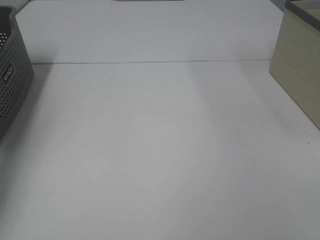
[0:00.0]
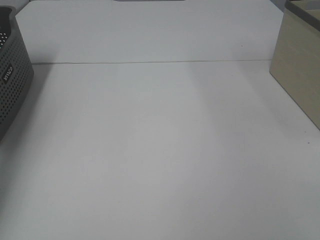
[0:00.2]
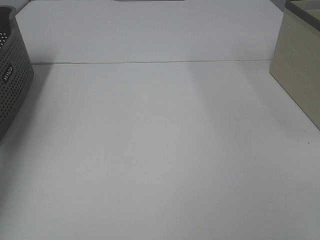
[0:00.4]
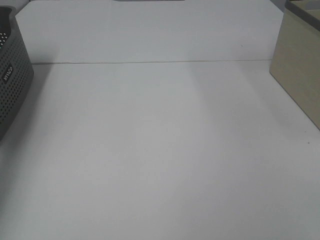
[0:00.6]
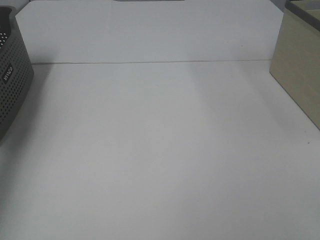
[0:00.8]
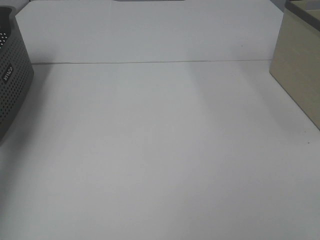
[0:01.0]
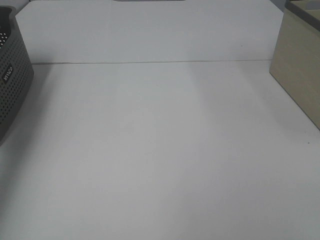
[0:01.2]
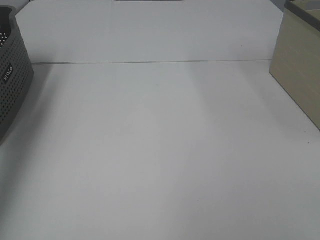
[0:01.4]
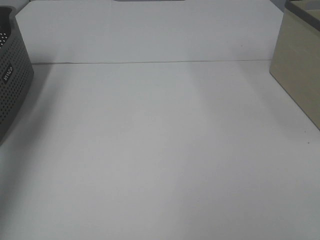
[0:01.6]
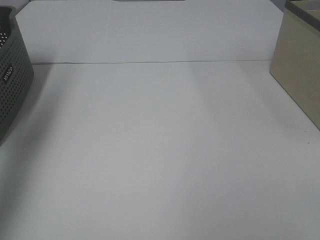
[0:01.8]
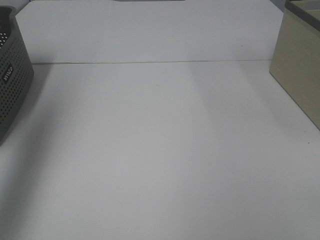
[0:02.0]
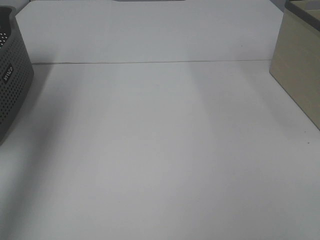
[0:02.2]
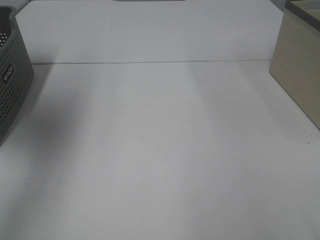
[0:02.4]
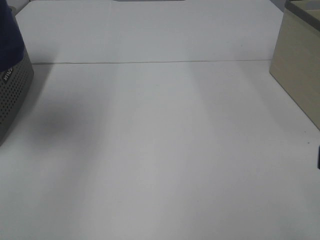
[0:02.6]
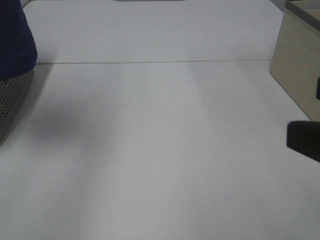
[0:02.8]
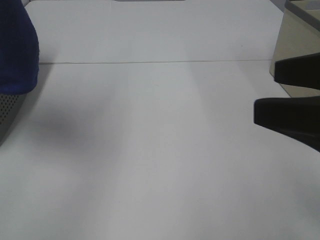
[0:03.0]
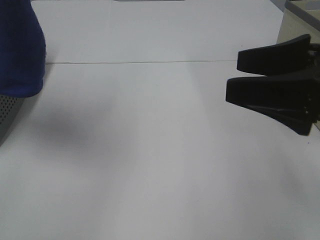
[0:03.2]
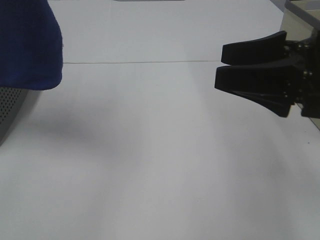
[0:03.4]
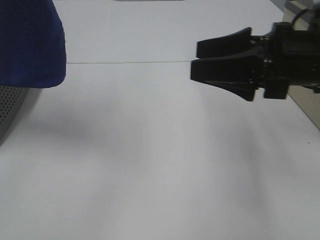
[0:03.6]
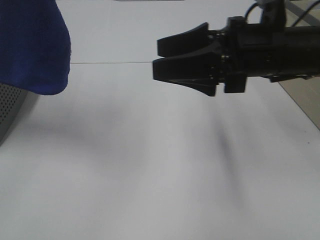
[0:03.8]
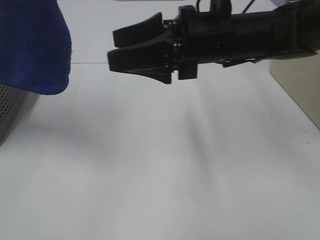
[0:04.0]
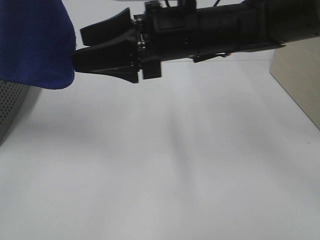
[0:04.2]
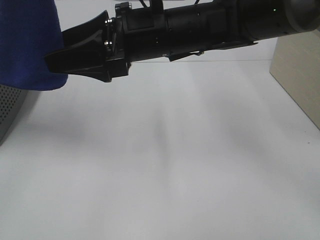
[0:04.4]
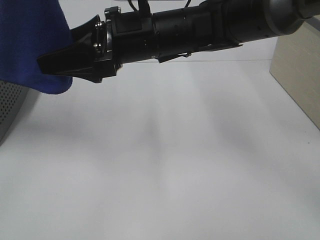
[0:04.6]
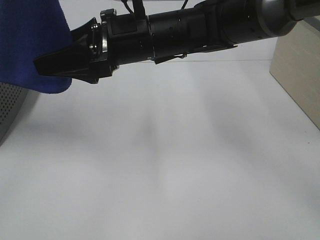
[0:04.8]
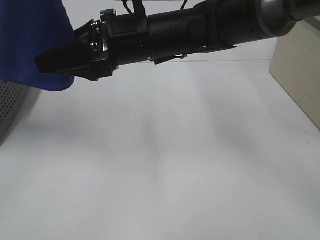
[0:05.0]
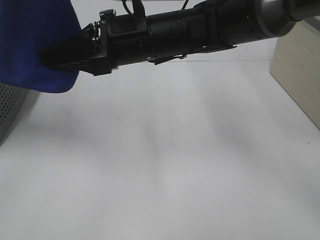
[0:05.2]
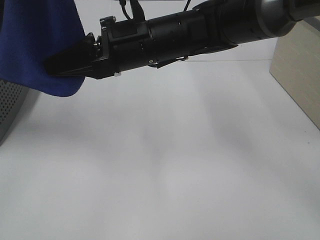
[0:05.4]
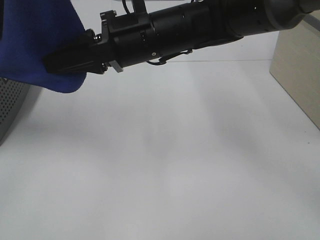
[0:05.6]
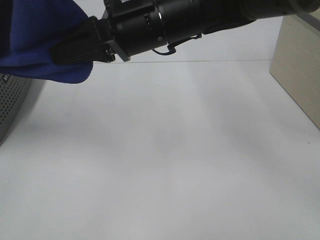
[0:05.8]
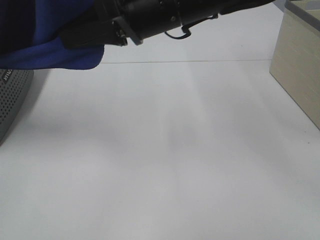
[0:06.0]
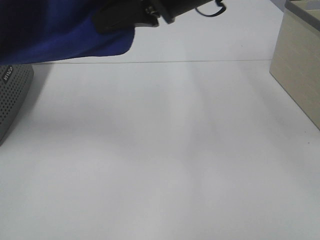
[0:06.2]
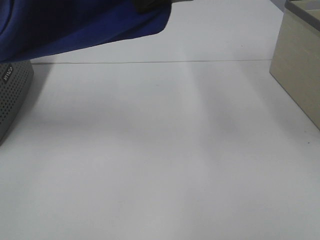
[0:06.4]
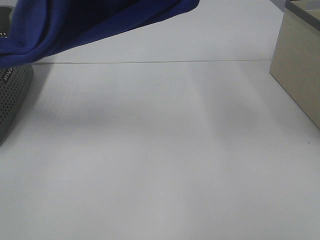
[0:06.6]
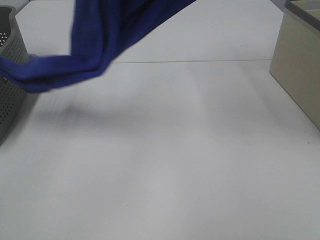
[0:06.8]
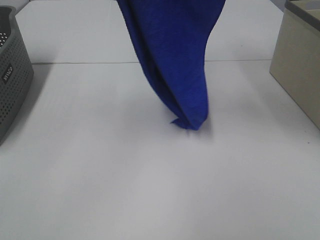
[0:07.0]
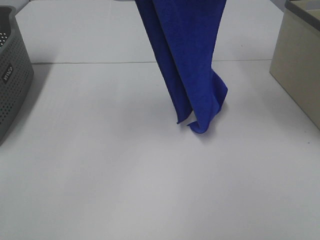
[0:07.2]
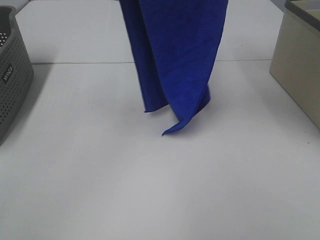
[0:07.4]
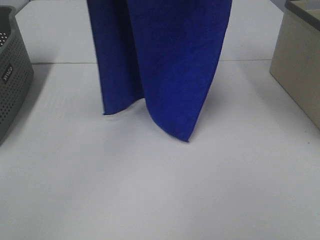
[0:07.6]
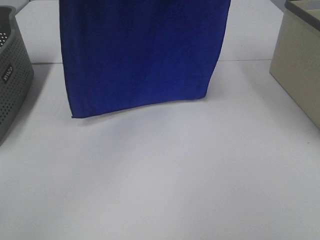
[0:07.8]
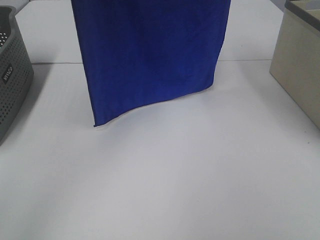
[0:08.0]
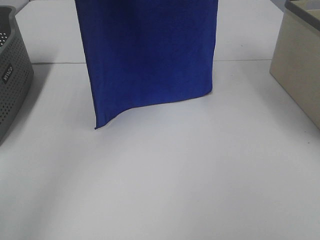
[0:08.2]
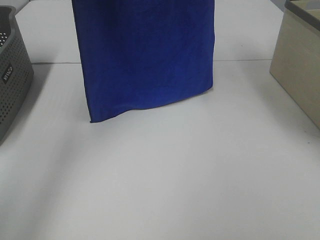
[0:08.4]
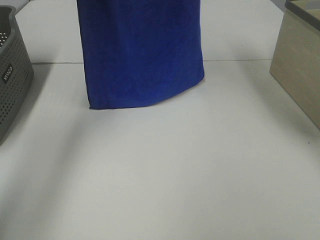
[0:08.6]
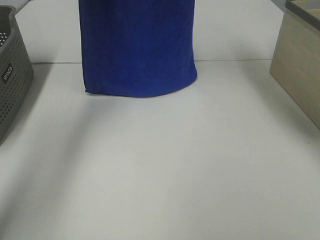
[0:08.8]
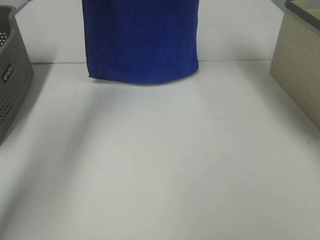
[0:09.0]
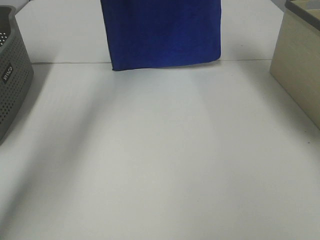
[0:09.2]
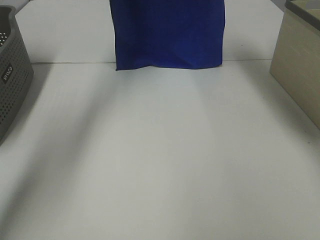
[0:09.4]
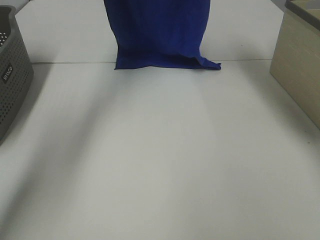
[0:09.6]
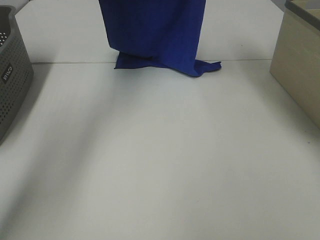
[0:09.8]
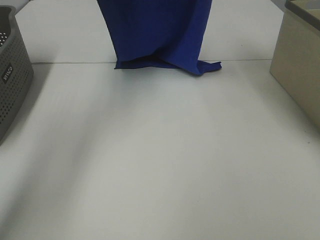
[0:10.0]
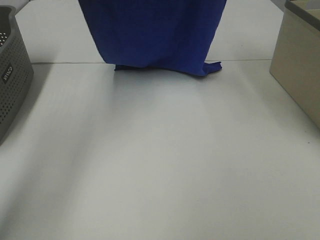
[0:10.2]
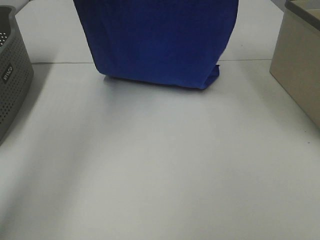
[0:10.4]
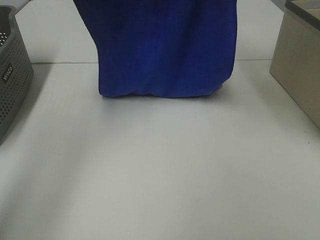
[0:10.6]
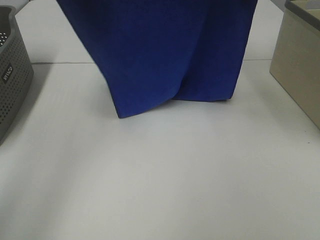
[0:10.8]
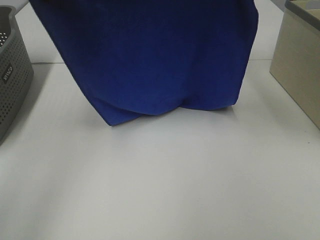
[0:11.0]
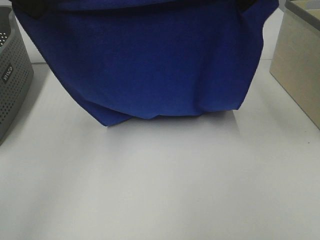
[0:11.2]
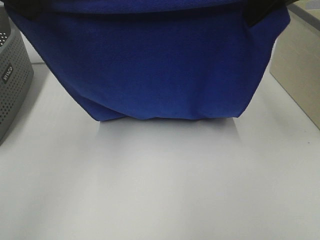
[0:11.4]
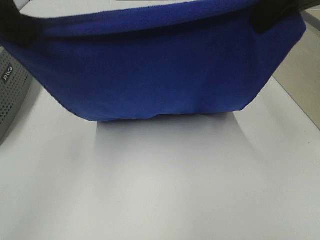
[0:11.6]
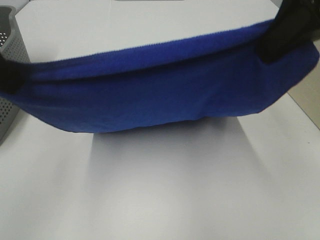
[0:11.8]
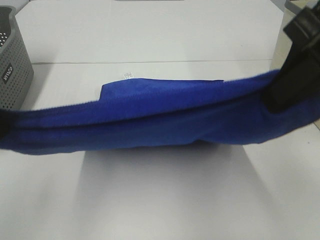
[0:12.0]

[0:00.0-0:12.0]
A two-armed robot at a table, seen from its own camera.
Task of the whole recording: Remove the towel and place it.
Step, 0:02.2 to 0:05.0: Right hand: grab a corner of the blue towel and straighten it.
Step, 0:05.2 to 0:11.4: Left hand: spread the blue towel flat on the table.
Step, 0:05.2 to 0:11.4: Right hand: spread the blue towel flat on the table.
0:00.0 to 0:01.6: The left gripper shifts roughly 30 cm upward and backward, and closes its fingers.
0:01.6 to 0:03.0: The left gripper heads to the right, backward and upward, covering roughly 20 cm. Meanwhile the right gripper heads forward, covering about 15 cm.
0:03.0 to 0:04.4: The right gripper goes approximately 30 cm to the left and forward.
0:04.4 to 0:06.0: The right gripper changes place by about 5 cm, and closes up.
0:06.0 to 0:07.6: The right gripper shifts about 25 cm upward and to the right. Meanwhile the left gripper is displaced forward by roughly 10 cm.
0:07.6 to 0:09.0: The grippers both shift forward by approximately 15 cm.
0:09.0 to 0:10.4: The two grippers go approximately 10 cm backward.
0:10.4 to 0:12.0: The two grippers go some 25 cm backward and downward.

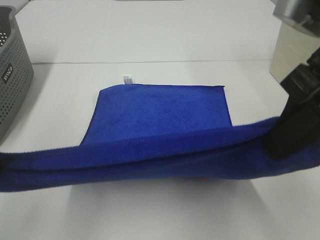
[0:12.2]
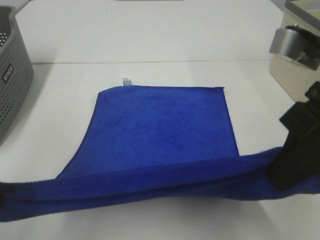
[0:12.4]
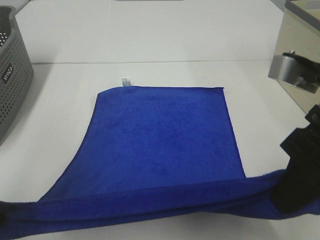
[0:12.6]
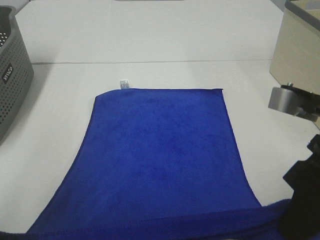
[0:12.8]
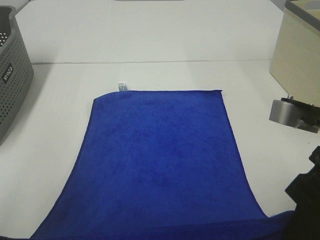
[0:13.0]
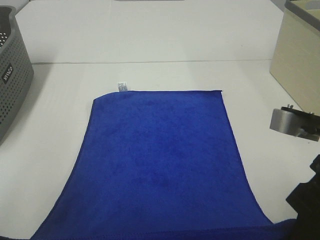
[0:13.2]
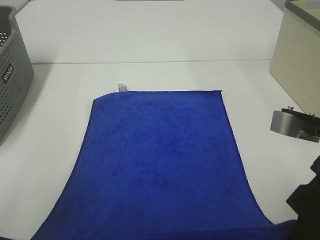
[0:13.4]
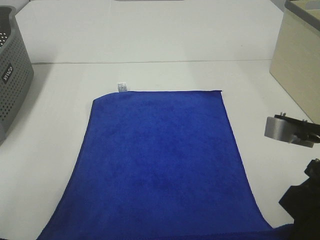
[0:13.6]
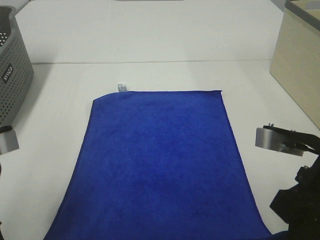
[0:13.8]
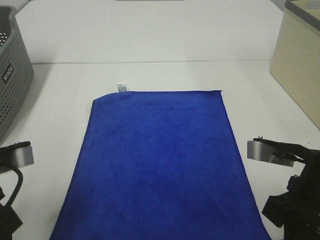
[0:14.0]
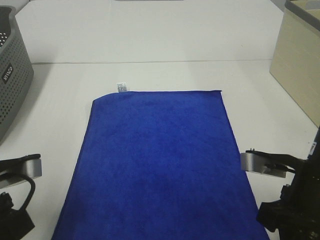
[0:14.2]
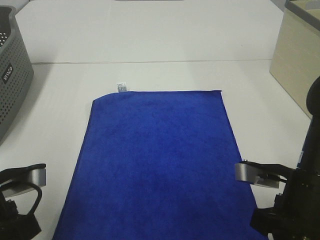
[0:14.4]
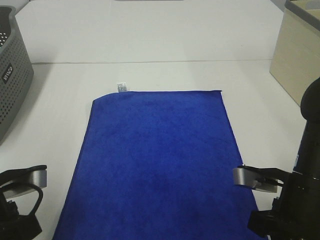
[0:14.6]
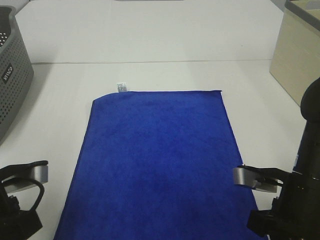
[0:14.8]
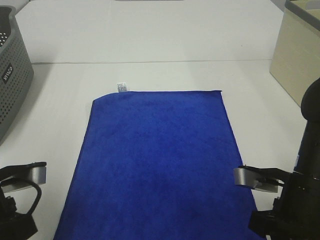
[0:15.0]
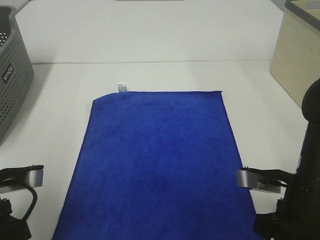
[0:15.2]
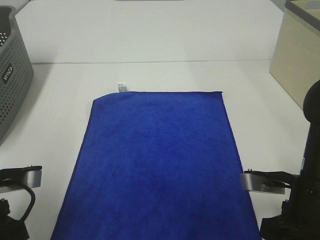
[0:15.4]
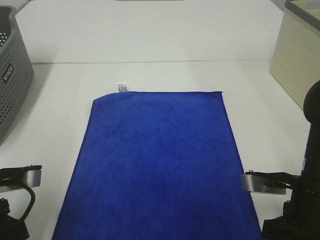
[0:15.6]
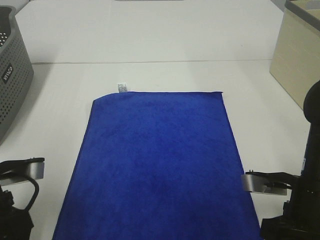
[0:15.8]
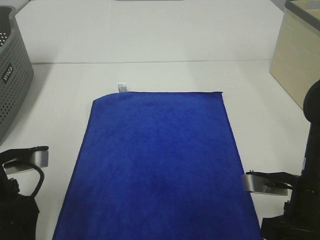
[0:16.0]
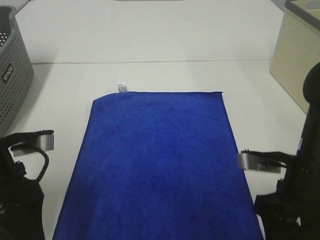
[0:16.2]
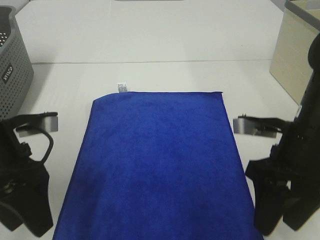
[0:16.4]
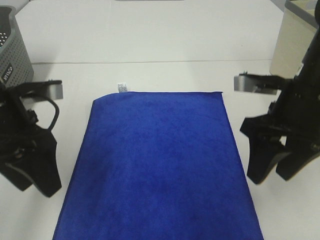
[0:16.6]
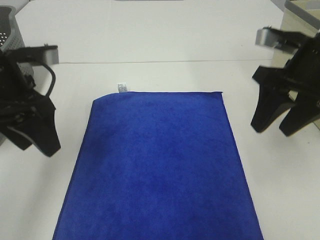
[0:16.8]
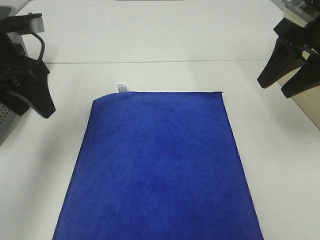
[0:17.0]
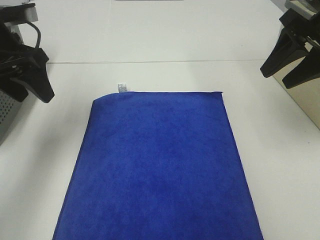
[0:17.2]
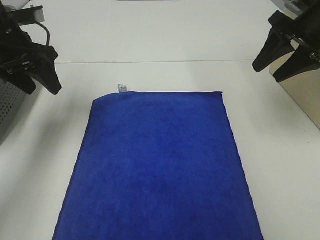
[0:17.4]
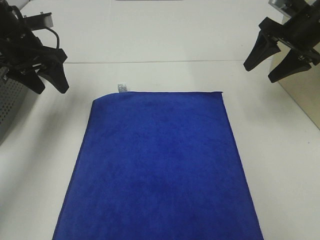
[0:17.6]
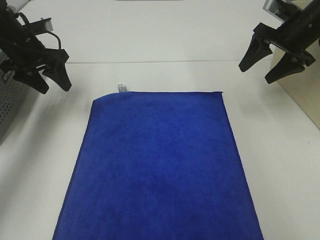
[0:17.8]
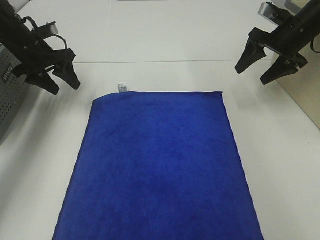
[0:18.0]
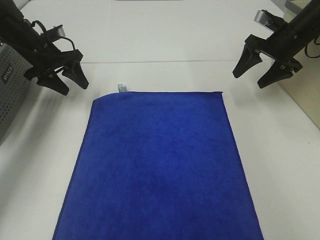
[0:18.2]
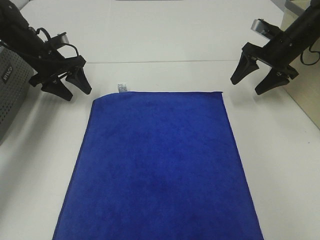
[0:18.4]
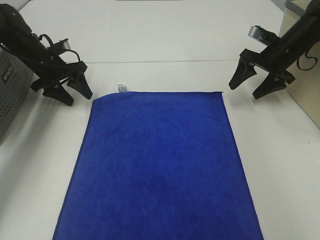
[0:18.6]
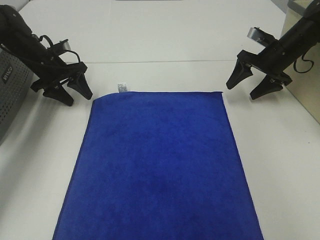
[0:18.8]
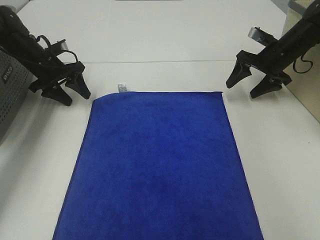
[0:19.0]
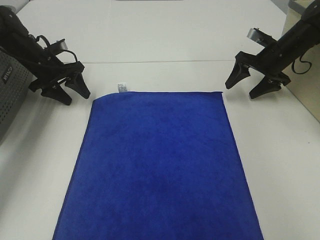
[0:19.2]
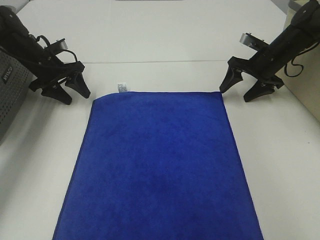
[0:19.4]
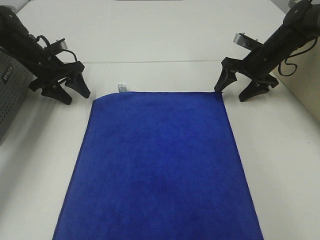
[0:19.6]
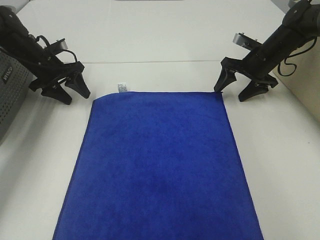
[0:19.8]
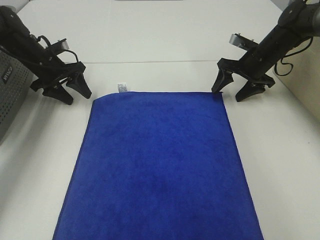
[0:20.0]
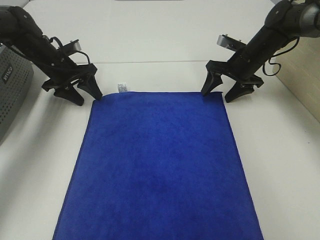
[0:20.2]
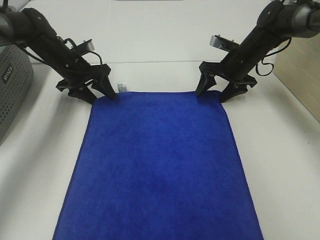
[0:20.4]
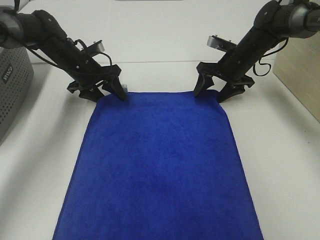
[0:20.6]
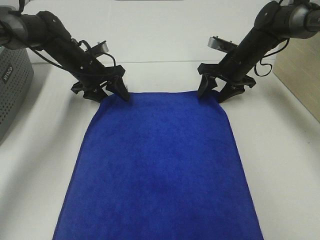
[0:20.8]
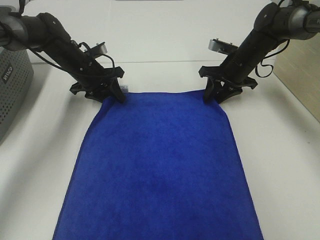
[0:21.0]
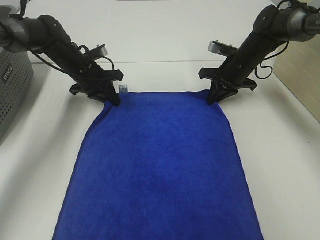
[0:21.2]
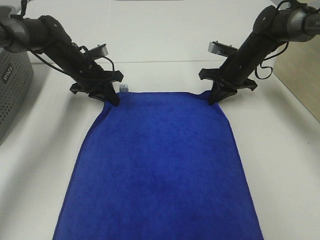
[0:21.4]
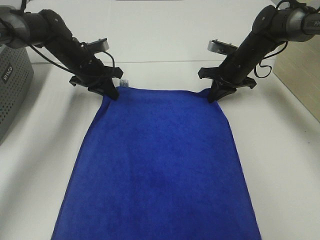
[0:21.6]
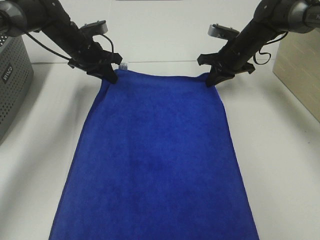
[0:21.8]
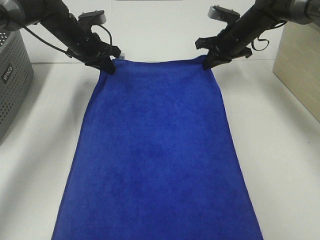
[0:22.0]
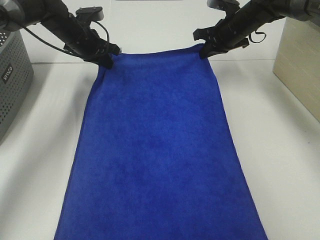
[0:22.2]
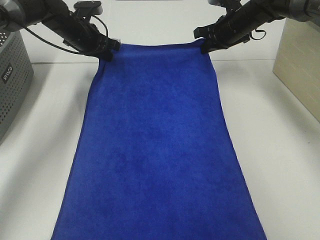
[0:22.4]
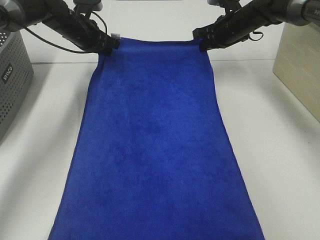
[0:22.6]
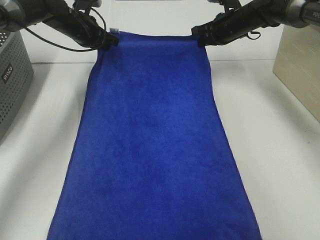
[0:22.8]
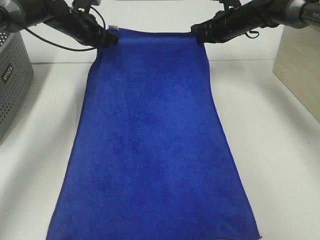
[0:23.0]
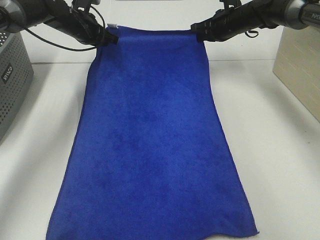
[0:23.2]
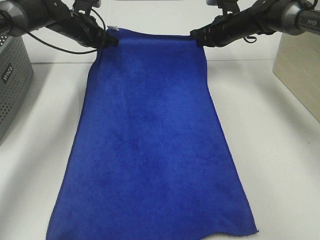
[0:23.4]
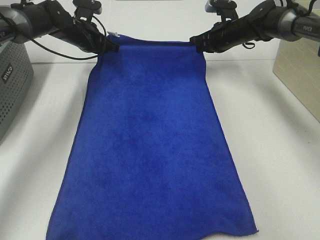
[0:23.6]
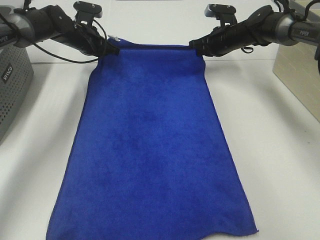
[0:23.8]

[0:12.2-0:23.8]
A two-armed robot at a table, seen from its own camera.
Task of the whole recording: Remove the towel and place it.
Step, 0:12.2 to 0:19.6: Left hand:adjust the blue towel.
Step, 0:12.2 to 0:19.6: Right hand:adjust the blue towel.
0:12.2 to 0:13.6: Both grippers travel together downward, approximately 10 cm.
0:13.6 to 0:15.0: Both grippers travel together downward, some 10 cm.
0:15.0 to 0:16.6: The left gripper moves forward and upward, about 10 cm, and opens, while the right gripper goes some 10 cm upward and forward, and opens.
0:16.6 to 0:18.0: The left gripper is displaced forward by some 25 cm, while the right gripper shifts some 25 cm forward and to the right.
0:18.0 to 0:19.4: The right gripper goes some 10 cm downward, while the left gripper travels downward by approximately 5 cm.
0:19.4 to 0:21.0: The right gripper moves to the left, approximately 5 cm, and closes up; the left gripper shifts roughly 10 cm to the right.
0:21.0 to 0:22.4: Both grippers move upward and forward, about 10 cm. The right gripper closes up, while the left gripper closes.
0:22.4 to 0:23.8: The right gripper ends up approximately 5 cm from where it was.
